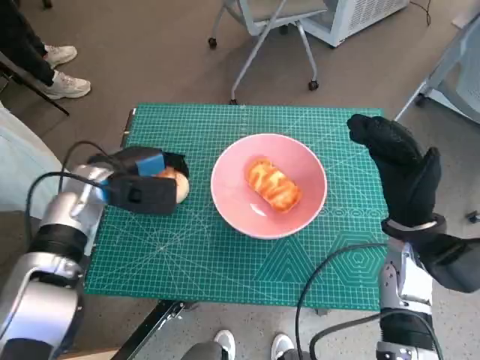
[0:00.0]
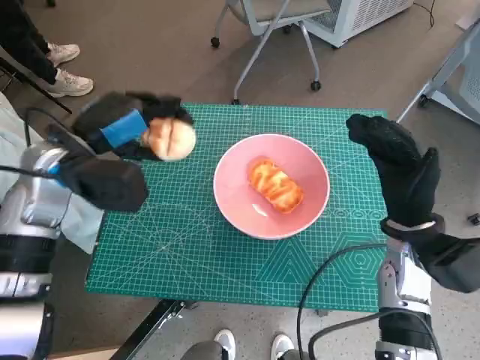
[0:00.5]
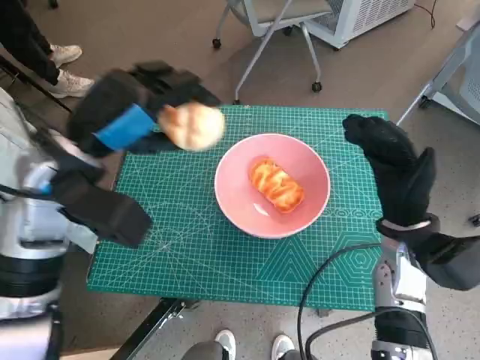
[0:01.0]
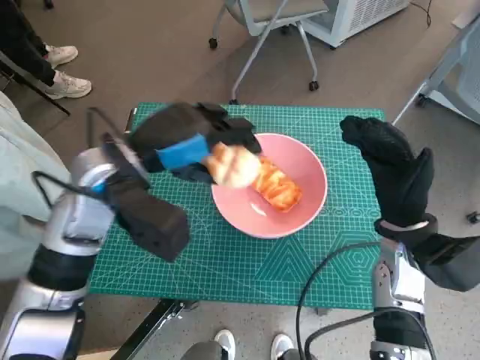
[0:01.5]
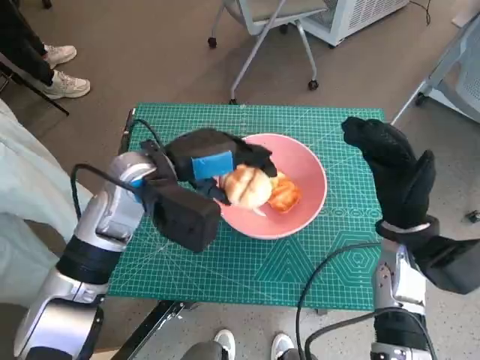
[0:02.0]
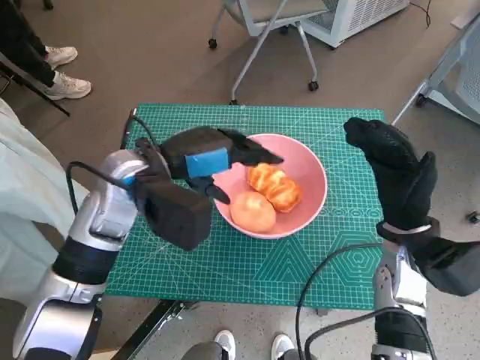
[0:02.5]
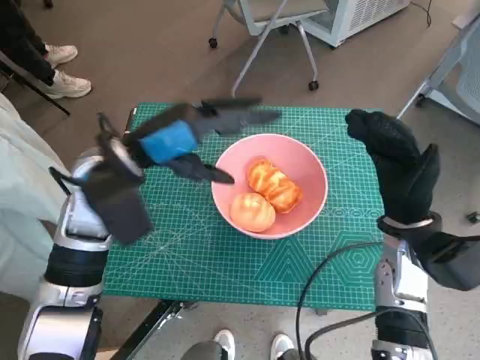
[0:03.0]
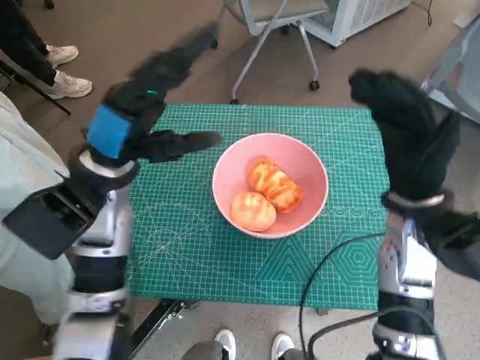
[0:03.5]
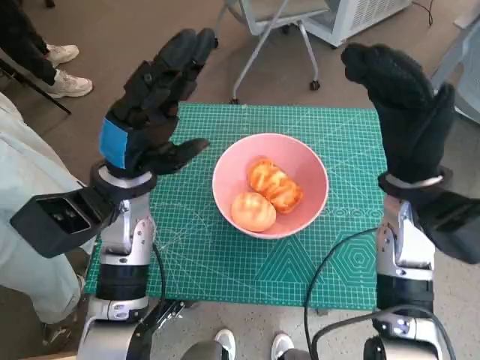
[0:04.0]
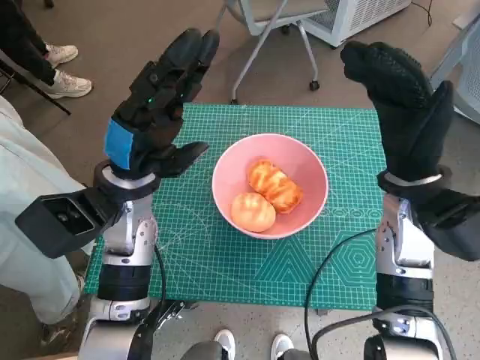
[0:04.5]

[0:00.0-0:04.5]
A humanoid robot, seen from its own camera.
Task of the whole recording: Push the bowl into the center of the table and put the bread into the bowl.
Step, 0:00.0 to 0:02.5: Place the round bread in pink bowl with left hand.
0:00.0 to 0:02.0: The left hand travels to the right and upward by some 10 cm.
0:02.0 to 0:04.5: The right hand is displaced upward by about 10 cm.

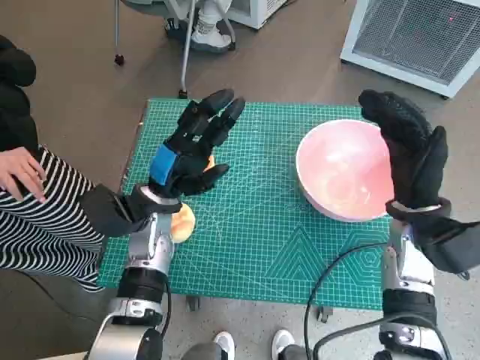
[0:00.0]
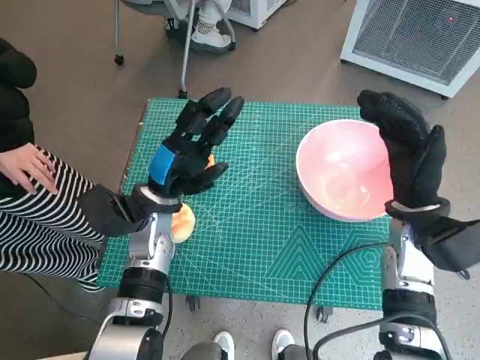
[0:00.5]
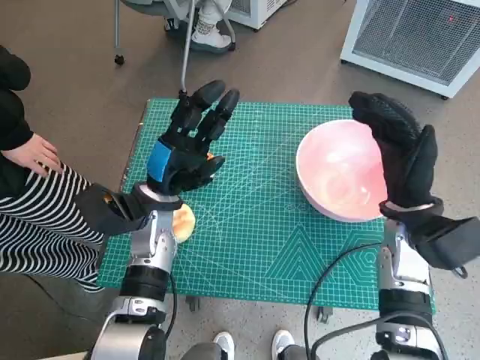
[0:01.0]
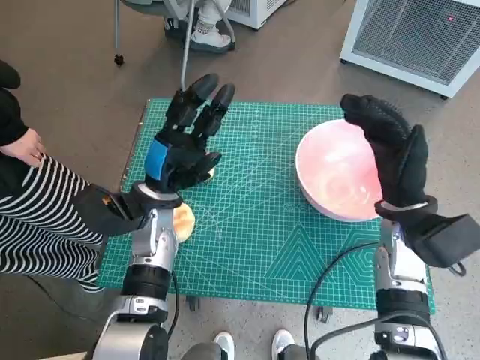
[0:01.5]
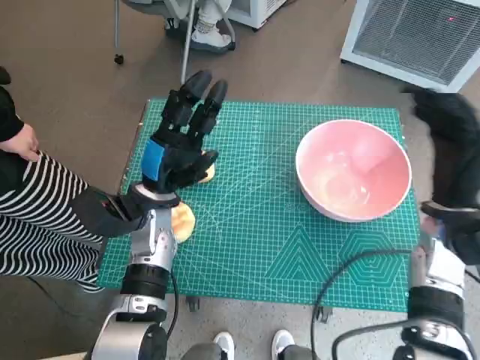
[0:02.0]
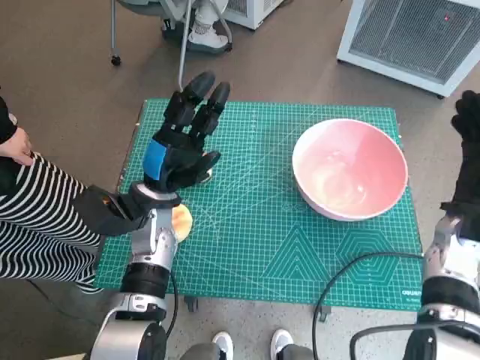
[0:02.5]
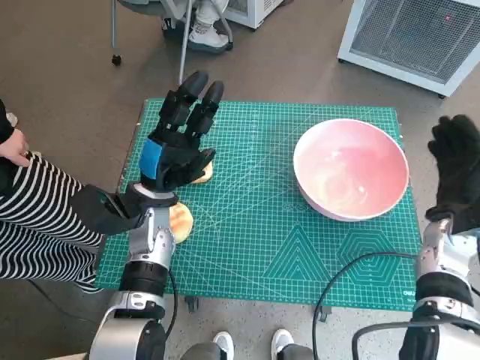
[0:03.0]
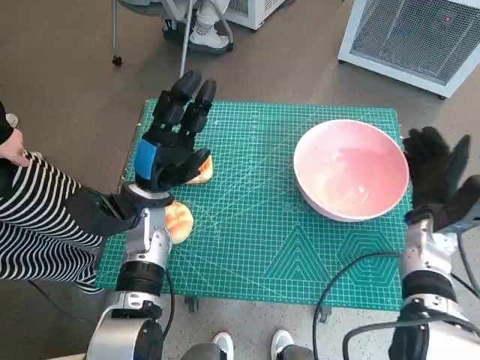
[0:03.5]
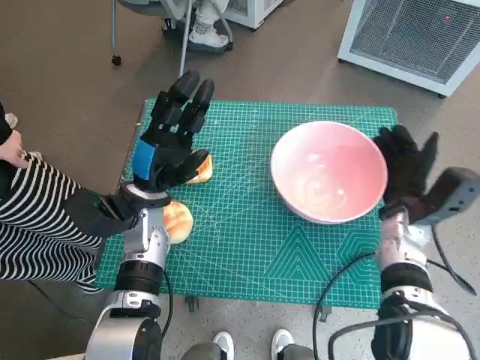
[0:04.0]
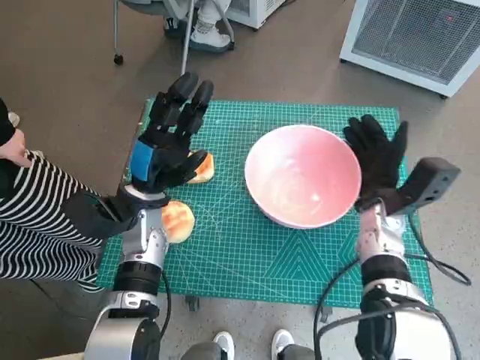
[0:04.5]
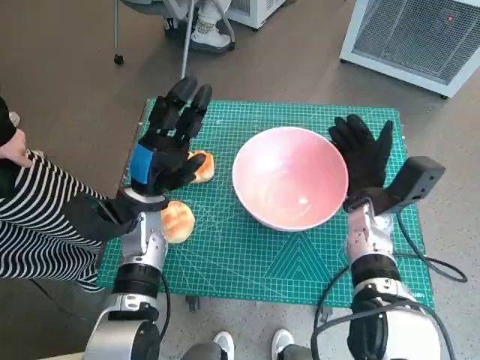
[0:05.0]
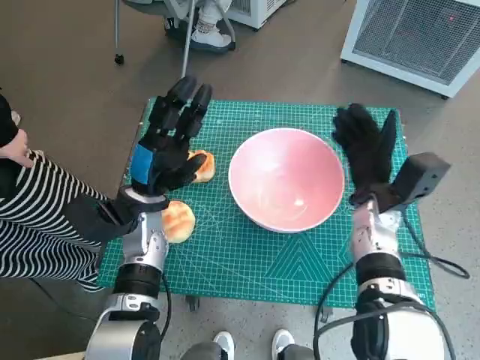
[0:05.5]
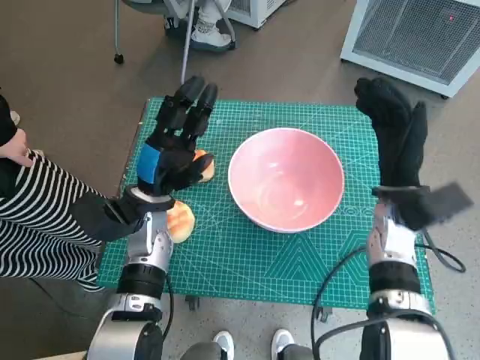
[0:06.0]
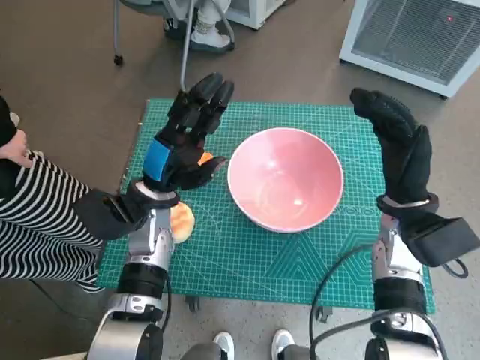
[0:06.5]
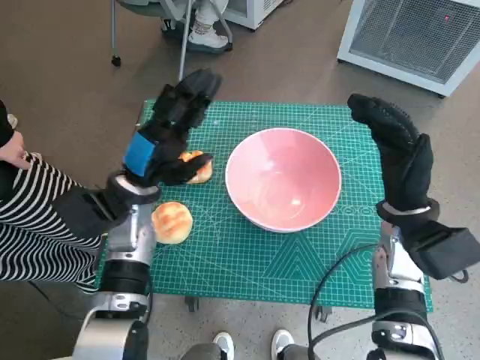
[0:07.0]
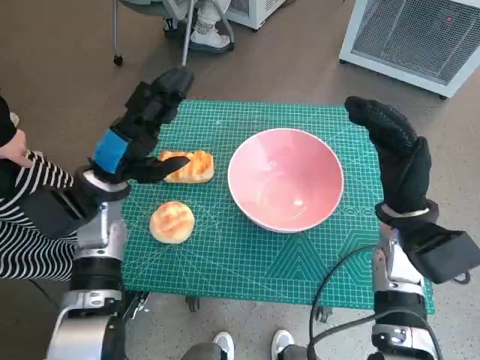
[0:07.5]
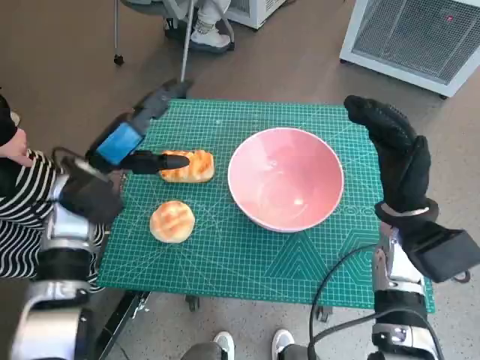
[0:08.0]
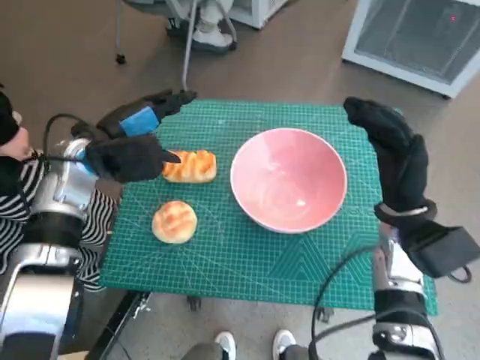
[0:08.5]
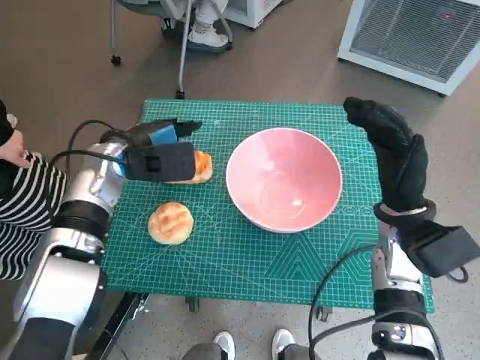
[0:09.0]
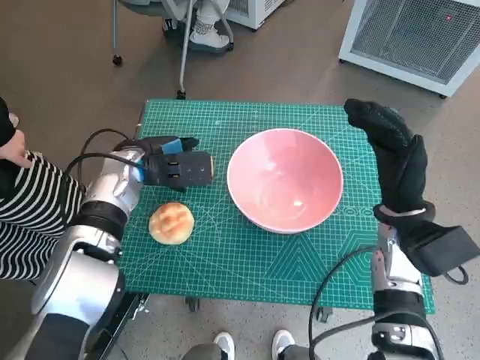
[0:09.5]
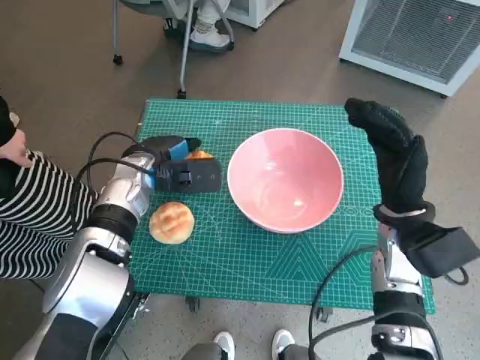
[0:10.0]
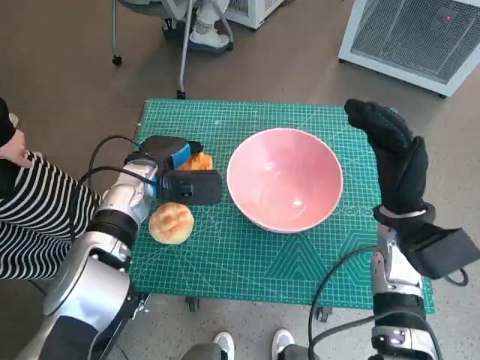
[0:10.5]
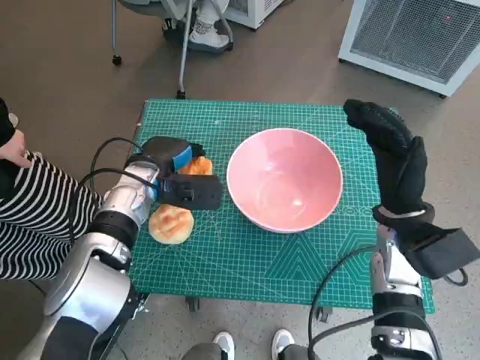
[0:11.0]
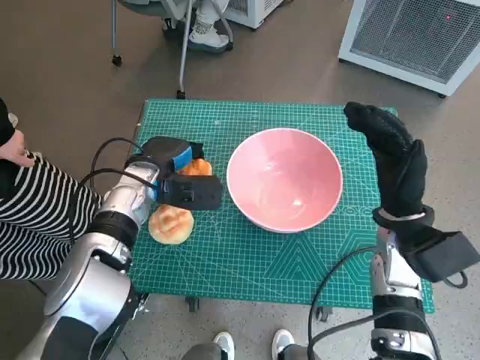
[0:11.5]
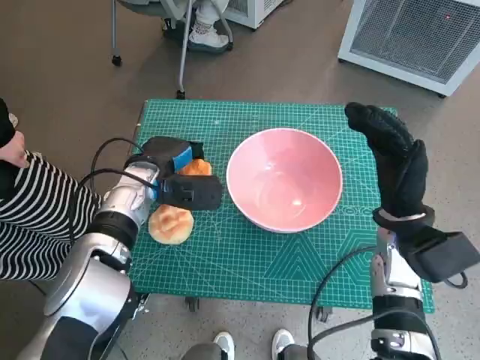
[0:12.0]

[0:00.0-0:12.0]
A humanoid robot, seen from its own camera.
Task of the whole recording: Push the bowl into the center of the table and put the bread into the bowl.
Step, 0:00.0 to 0:05.5: Move the pink bowl to the center of table with right hand.
Step, 0:06.0 to 0:11.0: Grasp the long bread with left hand.
0:02.0 to 0:04.0: The right hand shifts about 5 cm downward.
0:04.0 to 0:06.0: The right hand shifts by about 5 cm.
0:06.0 to 0:08.0: The left hand heads to the left and upward, covering roughly 10 cm.
0:08.0 to 0:10.0: The left hand is displaced to the right by about 5 cm.
0:10.0 to 0:12.0: There are only small adjustments of the hands.

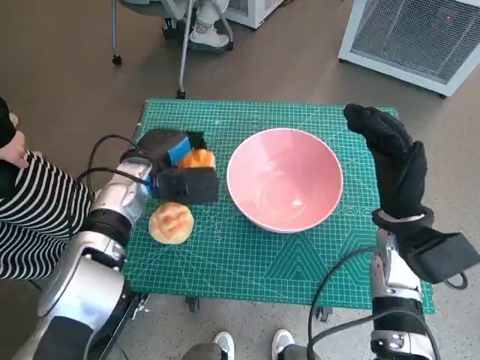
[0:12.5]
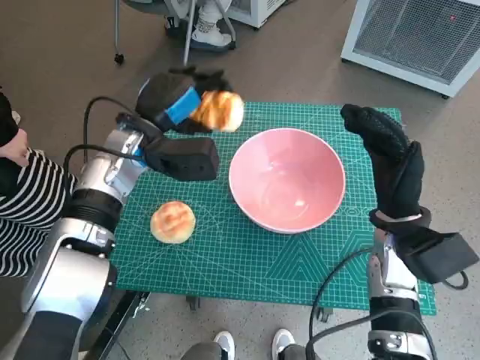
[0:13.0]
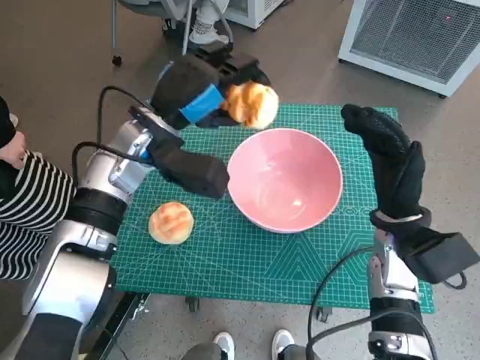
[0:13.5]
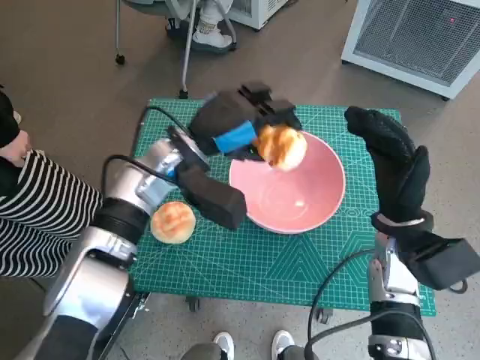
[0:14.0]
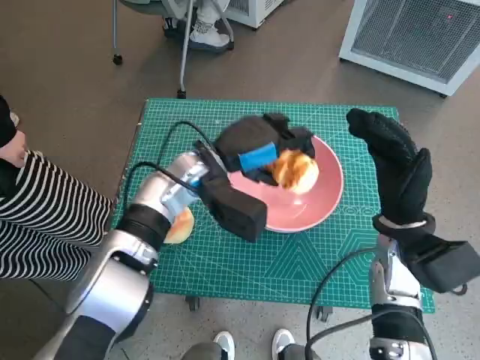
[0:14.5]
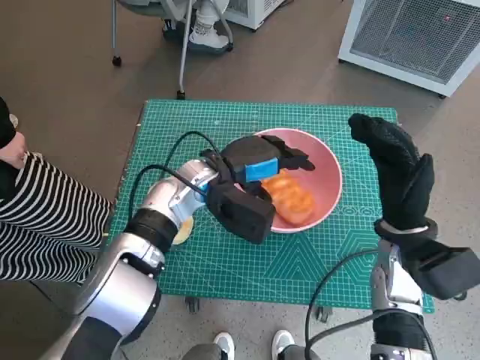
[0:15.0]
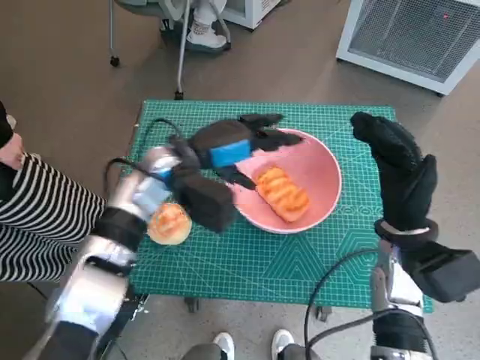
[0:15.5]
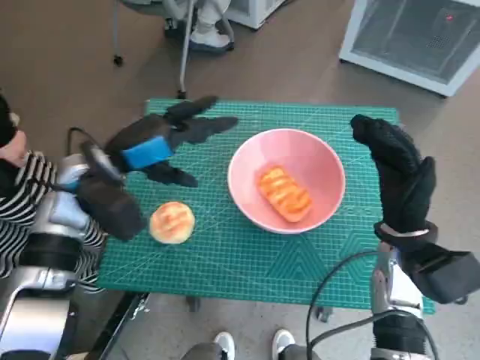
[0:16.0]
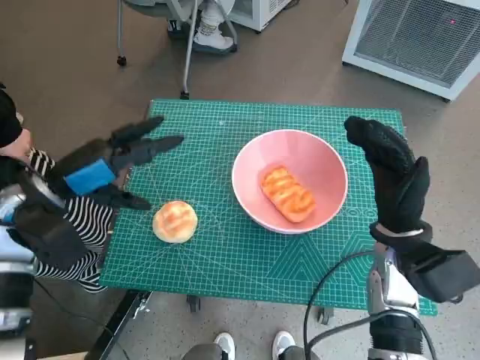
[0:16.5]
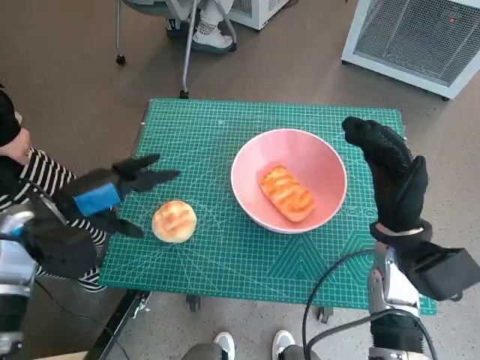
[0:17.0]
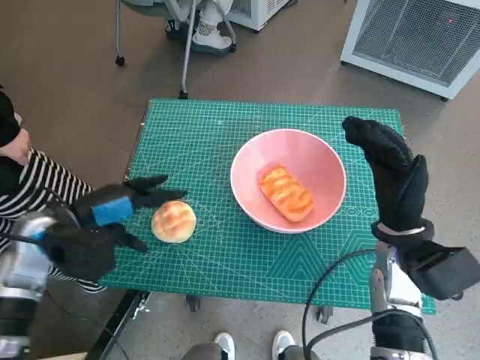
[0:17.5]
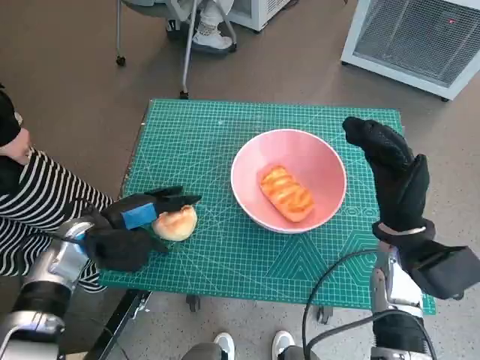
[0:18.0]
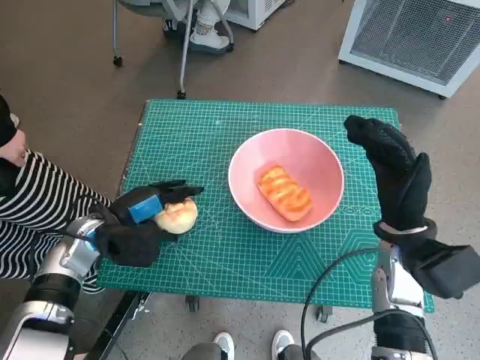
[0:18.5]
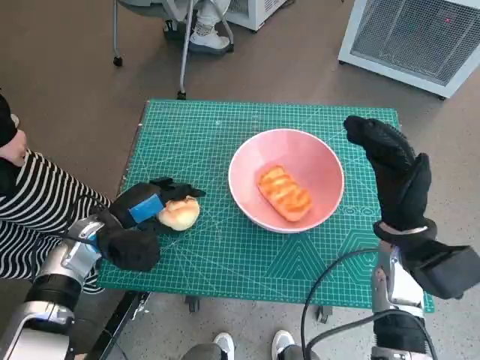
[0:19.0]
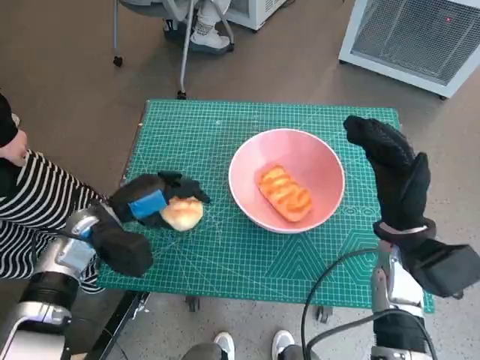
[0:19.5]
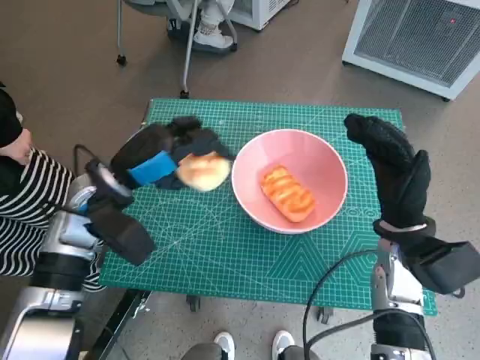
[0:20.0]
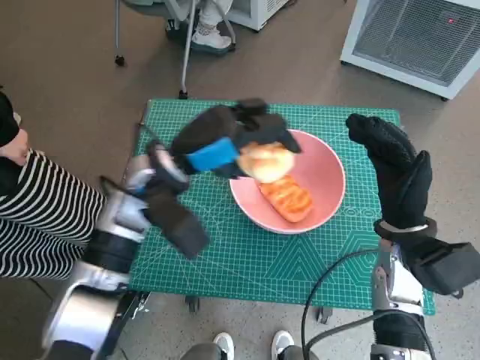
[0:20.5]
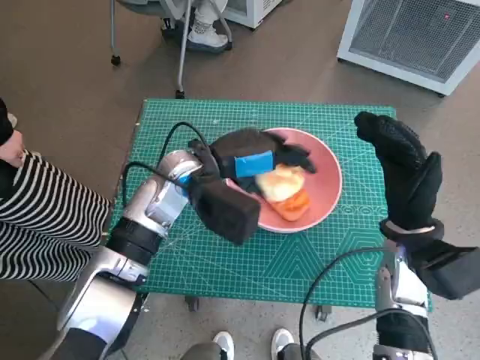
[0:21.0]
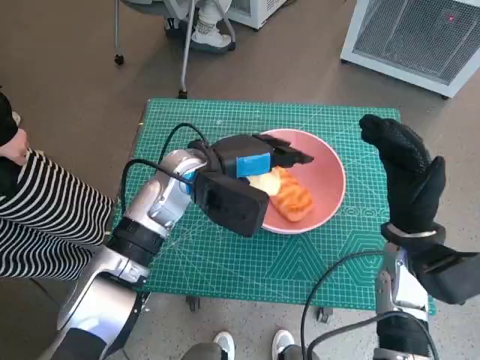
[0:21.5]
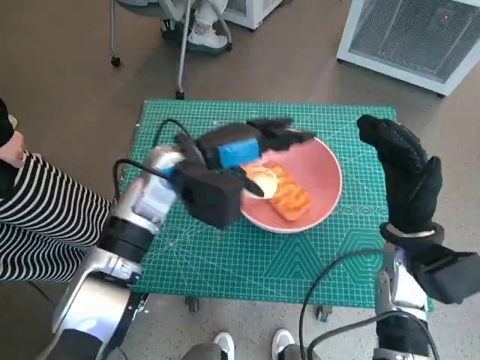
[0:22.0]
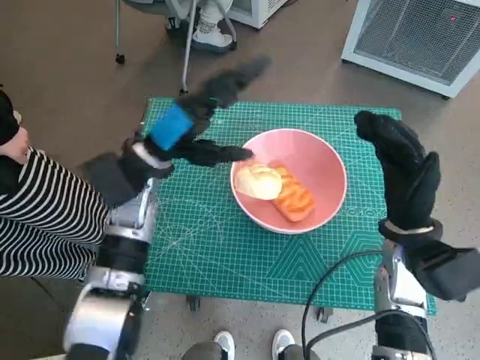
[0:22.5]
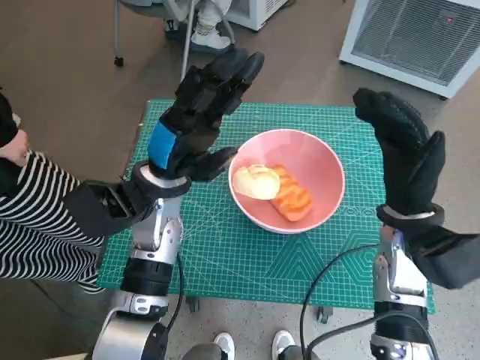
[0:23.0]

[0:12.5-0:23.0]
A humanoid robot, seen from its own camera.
Task of the whole recording: Push the bowl into the center of the table and put the bread into the bowl.
Step, 0:12.5 to 0:15.5: Place the long bread in pink bowl with left hand.
Step, 0:16.0 to 0:19.0: Grasp the round bread with left hand.
Step, 0:19.5 to 0:22.0: Place the round bread in pink bowl with left hand.
0:12.5 to 0:14.5: The left hand shifts approximately 10 cm to the right.
0:14.5 to 0:16.5: The left hand is displaced to the left by roughly 20 cm.
0:16.5 to 0:19.0: The left hand heads downward, covering about 10 cm.
0:19.0 to 0:21.0: The left hand travels to the right and upward by approximately 20 cm.
